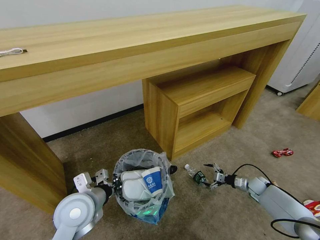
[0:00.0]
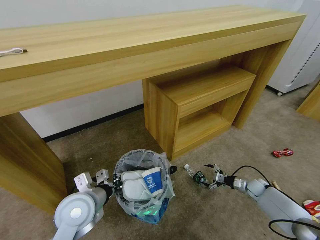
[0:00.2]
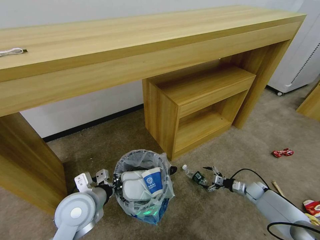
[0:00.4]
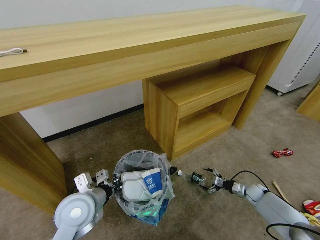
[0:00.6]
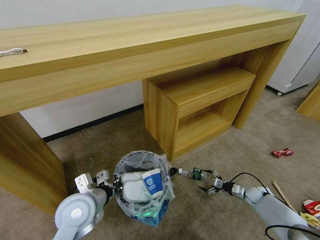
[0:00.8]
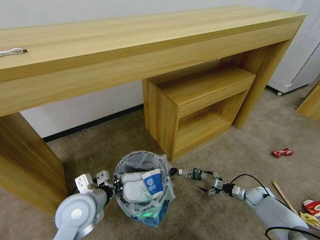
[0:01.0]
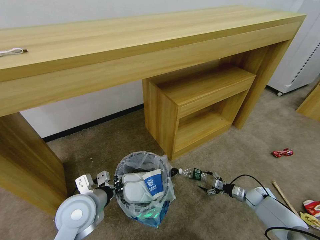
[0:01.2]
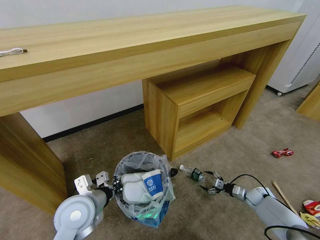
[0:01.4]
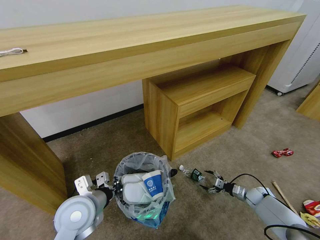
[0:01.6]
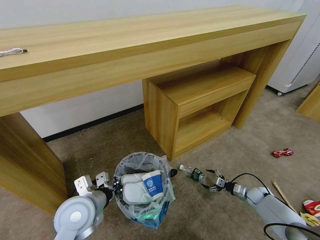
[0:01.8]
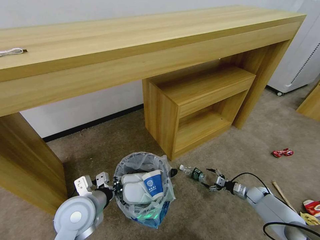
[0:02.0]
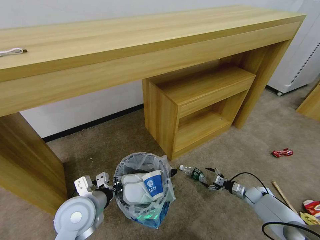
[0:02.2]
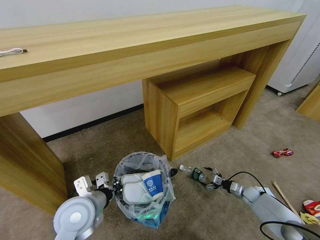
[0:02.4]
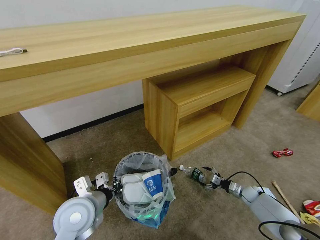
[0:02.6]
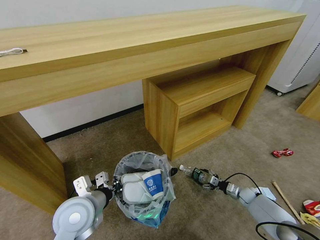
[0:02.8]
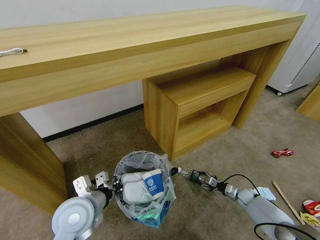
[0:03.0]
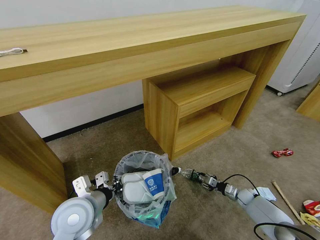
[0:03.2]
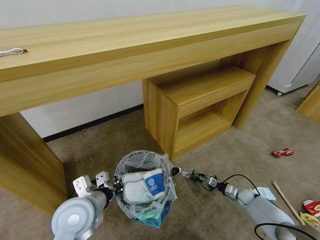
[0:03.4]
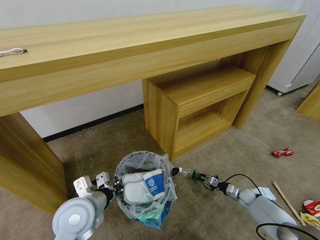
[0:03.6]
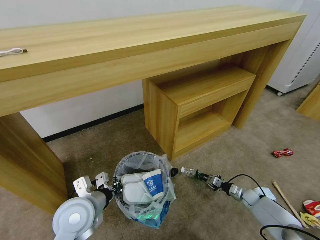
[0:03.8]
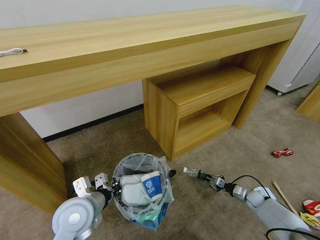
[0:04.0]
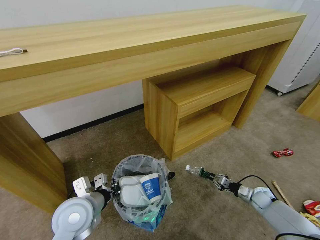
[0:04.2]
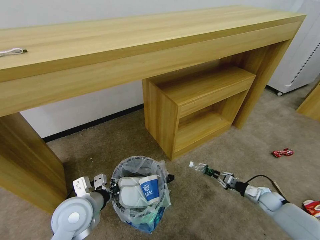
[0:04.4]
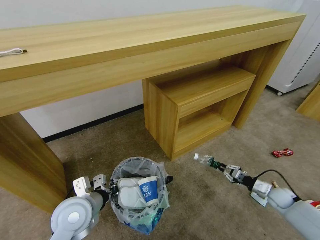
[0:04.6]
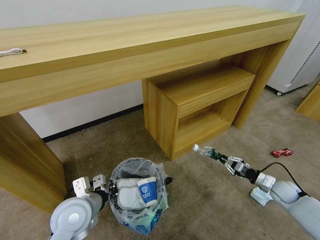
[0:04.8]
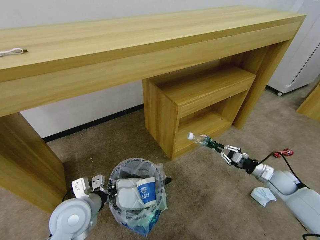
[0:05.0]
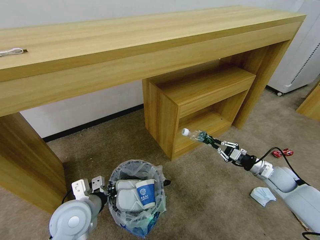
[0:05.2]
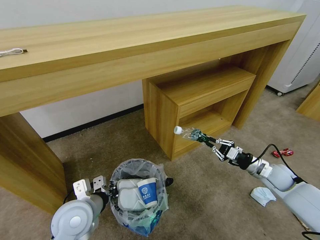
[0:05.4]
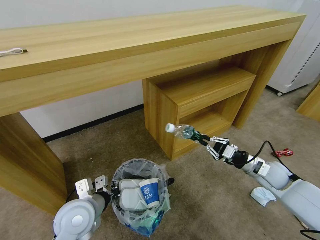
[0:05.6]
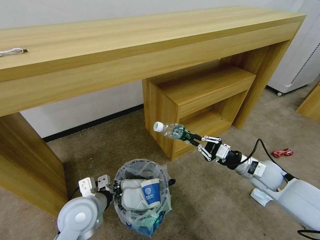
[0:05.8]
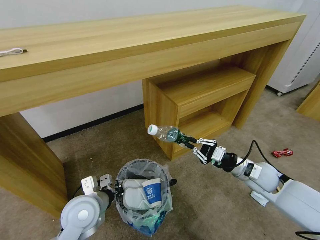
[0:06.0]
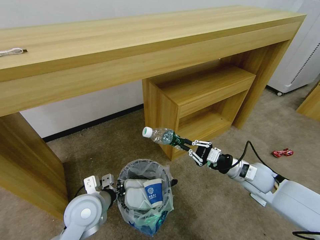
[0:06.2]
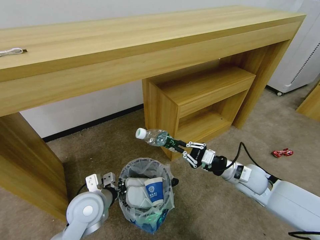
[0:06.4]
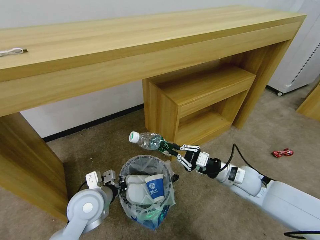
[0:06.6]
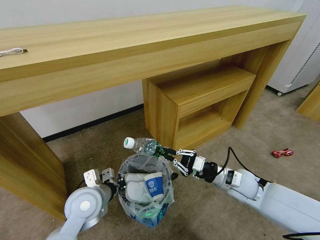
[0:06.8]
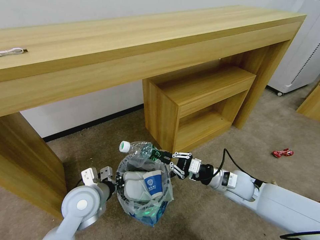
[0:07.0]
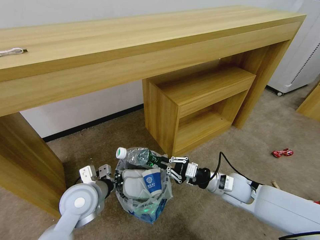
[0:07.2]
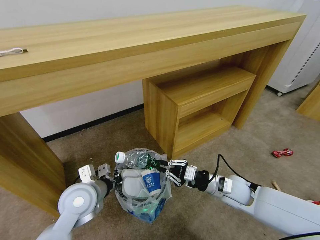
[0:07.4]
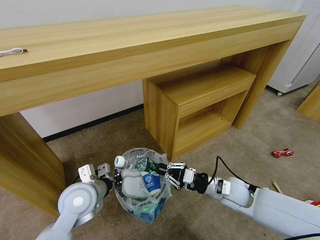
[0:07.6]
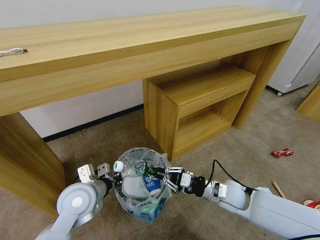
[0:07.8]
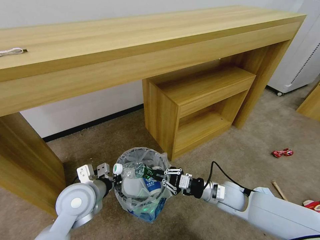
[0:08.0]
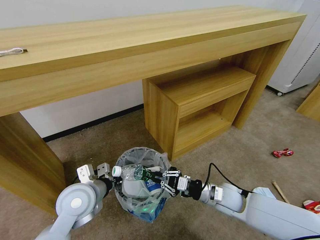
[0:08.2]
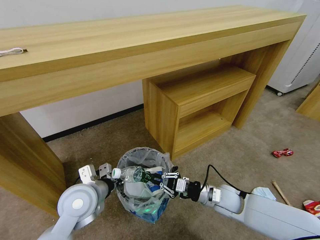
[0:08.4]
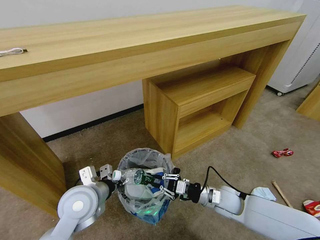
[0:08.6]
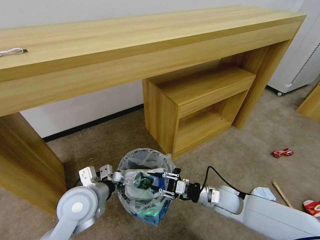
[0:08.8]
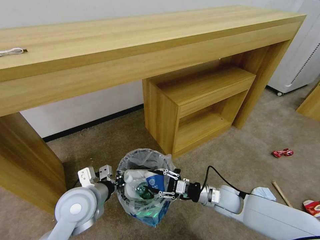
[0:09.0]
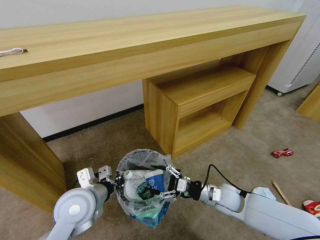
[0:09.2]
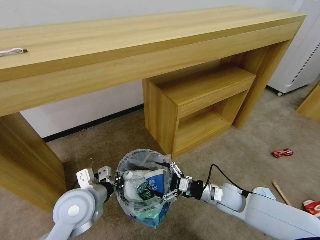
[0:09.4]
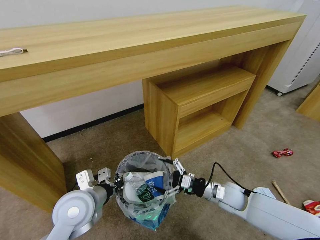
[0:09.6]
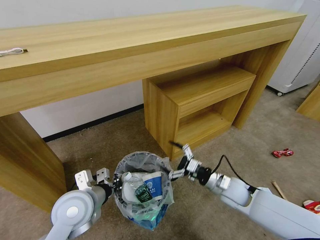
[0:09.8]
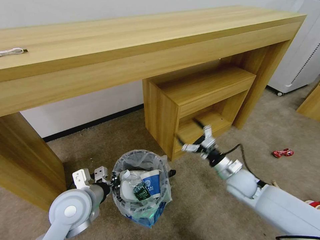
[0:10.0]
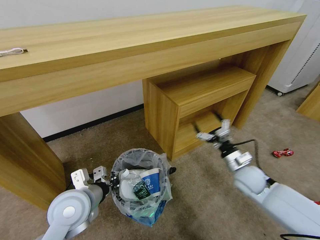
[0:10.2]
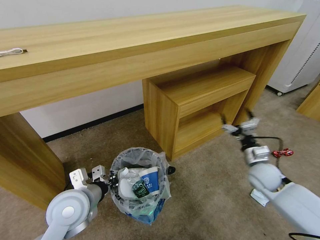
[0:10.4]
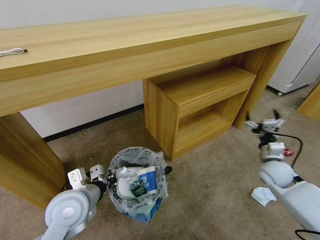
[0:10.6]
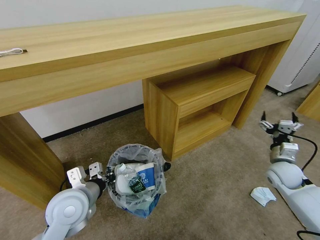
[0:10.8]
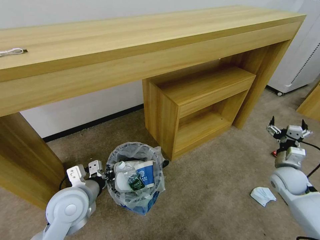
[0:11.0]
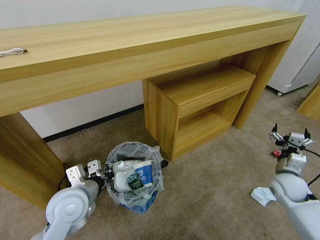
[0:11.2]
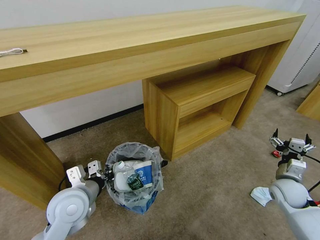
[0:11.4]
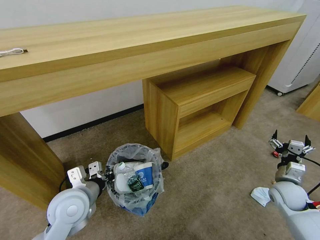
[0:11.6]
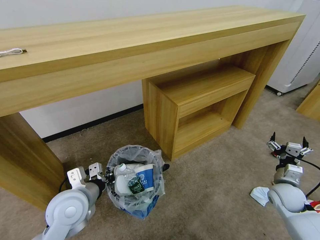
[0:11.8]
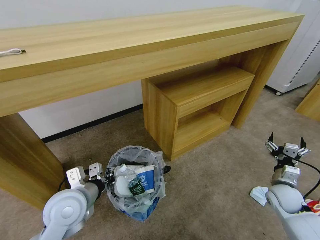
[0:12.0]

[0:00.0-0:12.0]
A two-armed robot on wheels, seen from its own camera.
Task of the whole recording: Pick up the trash bin and place the garbage on the floor into it.
0:00.0 to 0:01.6: The right gripper changes place by approximately 5 cm.
0:01.6 to 0:03.0: The grippers make only small movements.
0:03.0 to 0:04.4: The right gripper goes about 10 cm upward and to the right, and closes its fingers.
0:04.4 to 0:06.0: The right gripper goes approximately 25 cm upward and to the left.
0:06.0 to 0:07.6: The right gripper is displaced to the left by some 10 cm.
0:07.6 to 0:09.0: The right gripper heads downward, covering about 5 cm, and opens.
0:09.0 to 0:10.4: The right gripper travels to the right, upward and forward by approximately 15 cm, and opens.
0:10.4 to 0:12.0: The right gripper goes approximately 10 cm to the right, downward and backward.

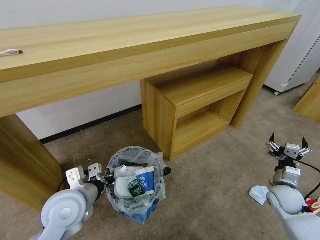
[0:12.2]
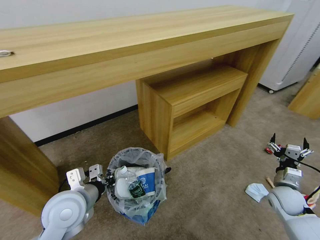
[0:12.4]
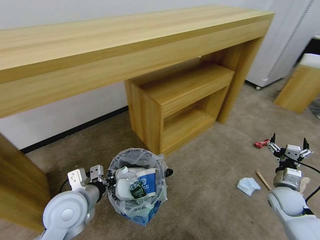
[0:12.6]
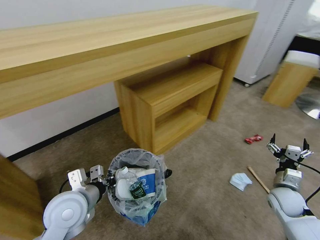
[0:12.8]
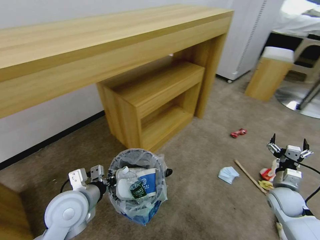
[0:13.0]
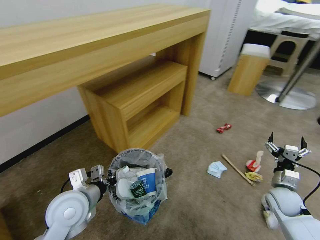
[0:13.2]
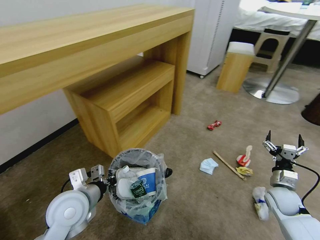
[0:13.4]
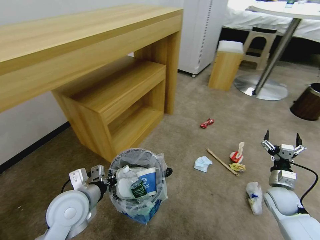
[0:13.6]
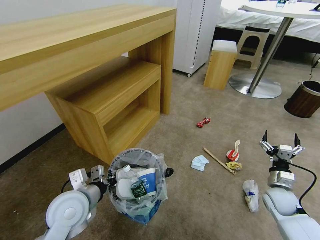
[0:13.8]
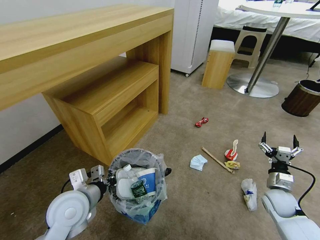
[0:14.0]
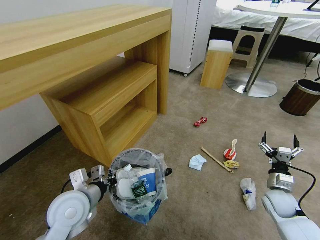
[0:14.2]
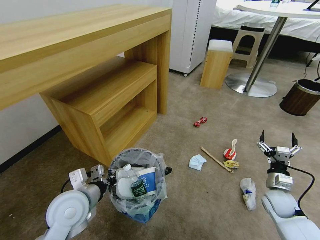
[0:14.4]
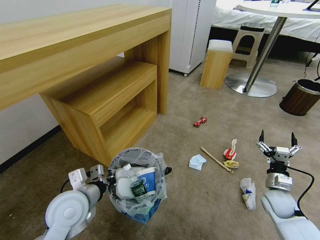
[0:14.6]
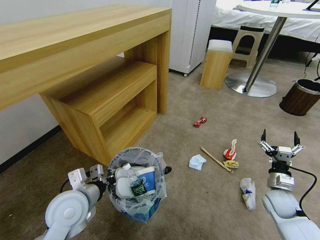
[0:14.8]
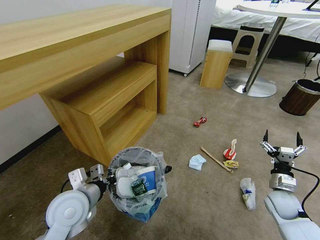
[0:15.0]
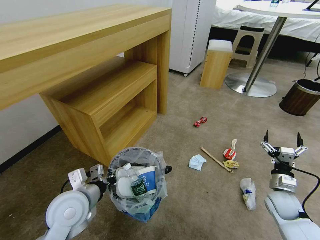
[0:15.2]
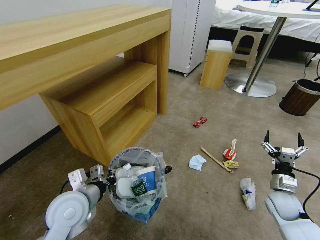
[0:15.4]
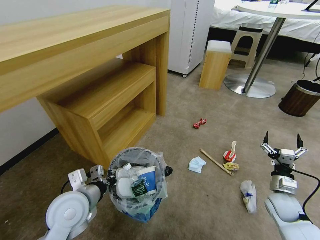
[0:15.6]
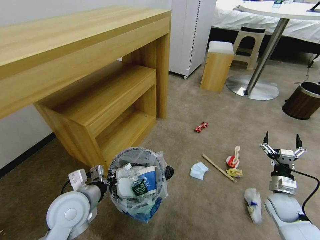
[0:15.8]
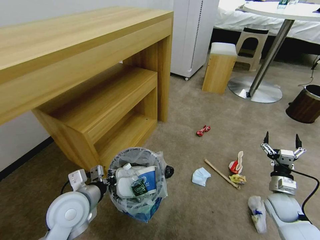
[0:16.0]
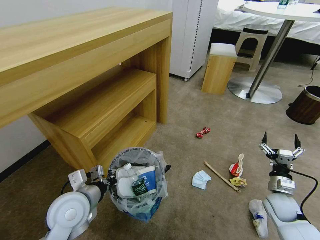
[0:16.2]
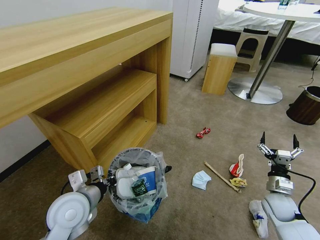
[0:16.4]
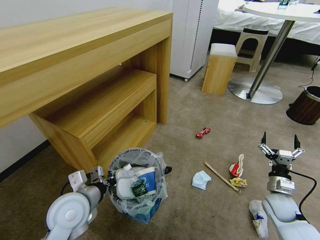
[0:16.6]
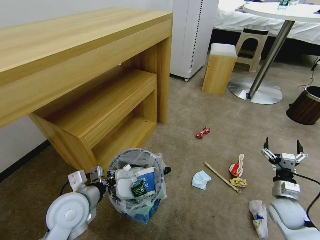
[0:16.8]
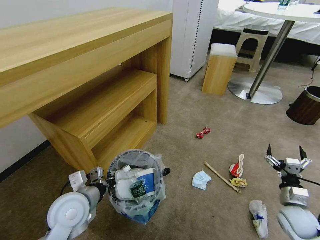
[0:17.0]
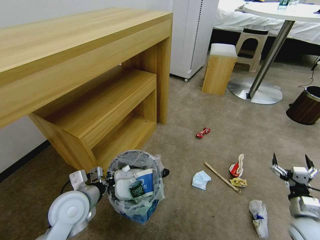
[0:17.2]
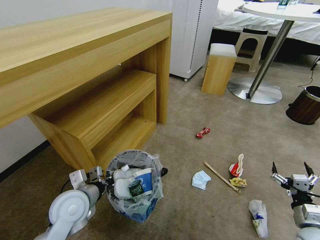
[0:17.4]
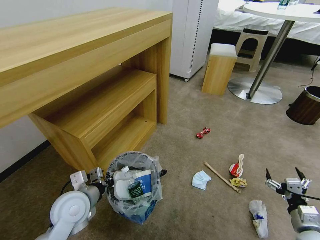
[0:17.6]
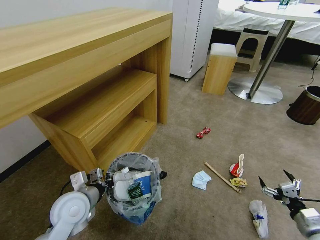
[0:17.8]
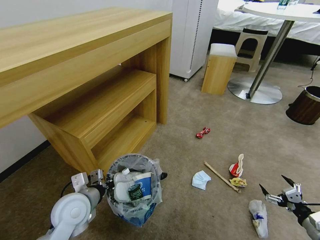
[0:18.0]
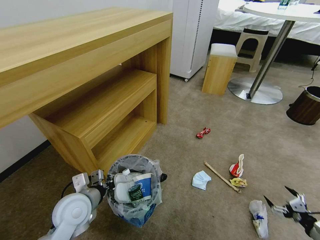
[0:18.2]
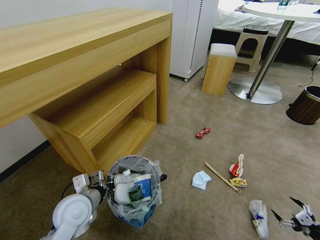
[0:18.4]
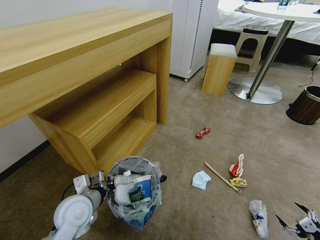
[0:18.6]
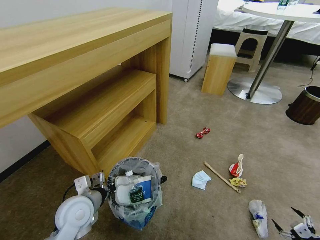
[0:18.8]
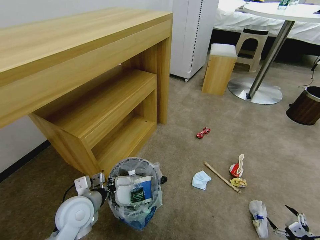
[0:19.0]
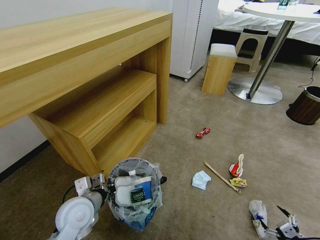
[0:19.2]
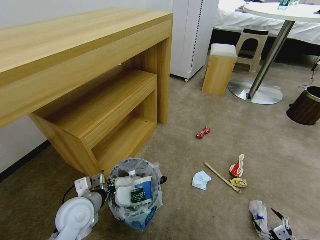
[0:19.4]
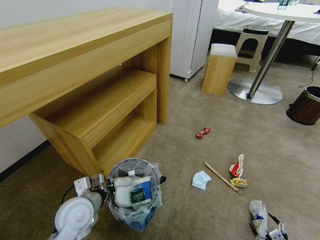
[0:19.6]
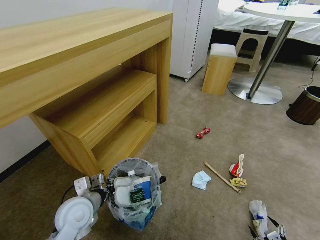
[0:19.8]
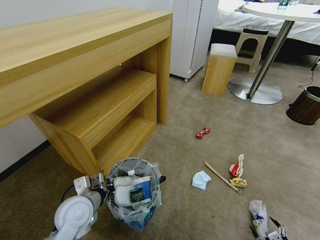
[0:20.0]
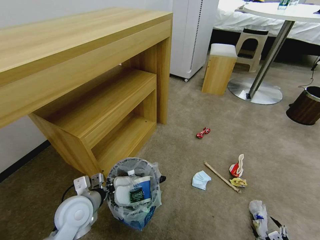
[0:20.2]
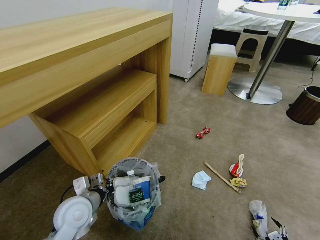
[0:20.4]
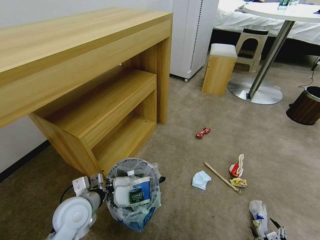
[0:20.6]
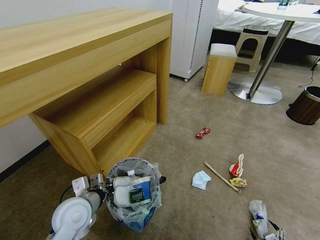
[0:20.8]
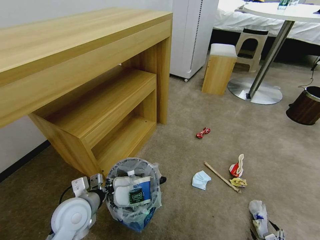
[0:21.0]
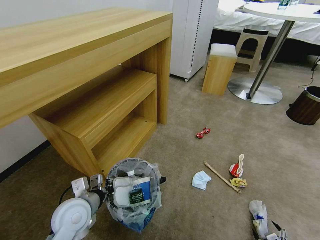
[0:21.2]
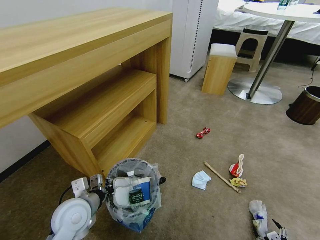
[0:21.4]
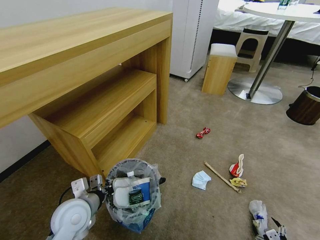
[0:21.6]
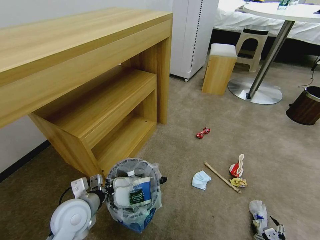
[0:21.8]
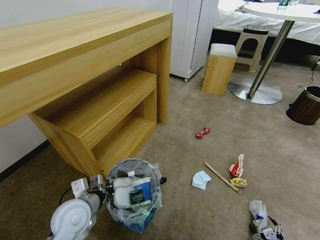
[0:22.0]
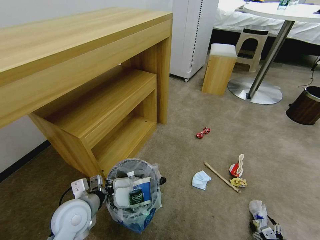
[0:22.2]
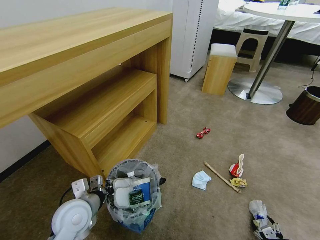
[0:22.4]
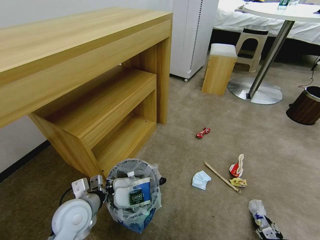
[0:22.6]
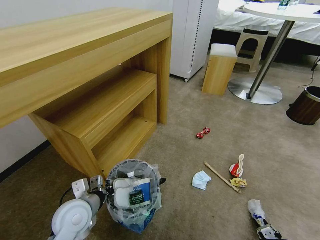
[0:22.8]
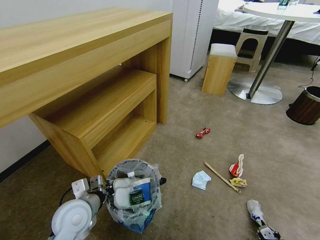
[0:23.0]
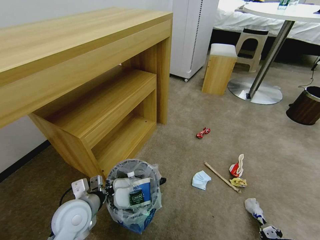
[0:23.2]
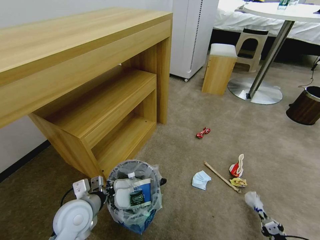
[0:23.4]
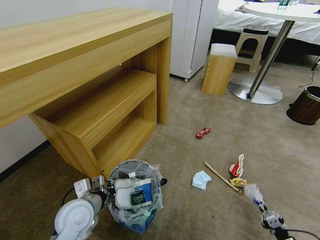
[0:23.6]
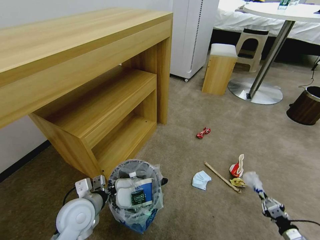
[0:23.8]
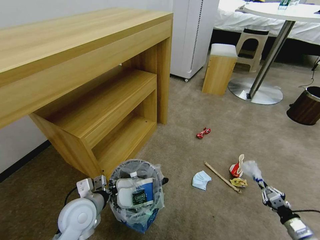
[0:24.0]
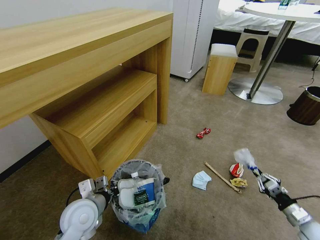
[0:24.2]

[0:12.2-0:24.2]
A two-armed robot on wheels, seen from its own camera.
Task of the whole recording: Pick up the trash bin and place the garbage on the floor into it.
0:13.8 to 0:15.2: There are only small adjustments of the grippers.
0:16.6 to 0:18.2: The right gripper goes approximately 20 cm backward and to the right.
0:18.2 to 0:19.8: The right gripper moves downward, backward and to the left, approximately 15 cm.
0:19.8 to 0:21.2: The grippers stay close to where they were, moving slightly.
0:21.2 to 0:22.6: The right gripper closes its fingers.
0:22.6 to 0:24.2: The right gripper goes approximately 20 cm upward and forward, and closes up.
